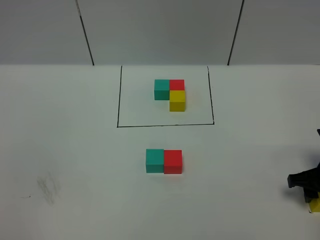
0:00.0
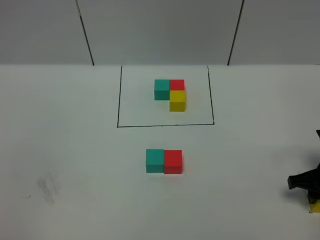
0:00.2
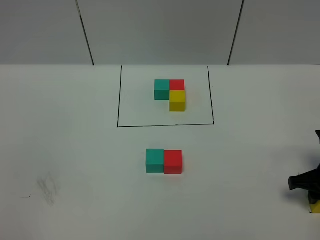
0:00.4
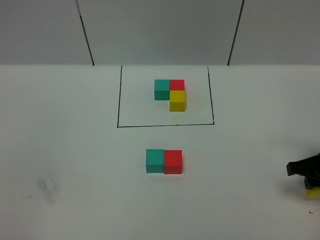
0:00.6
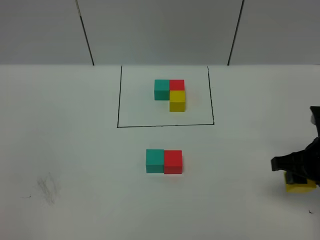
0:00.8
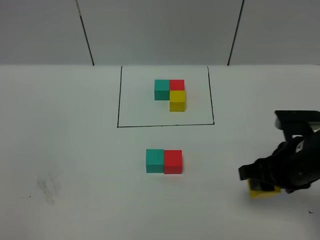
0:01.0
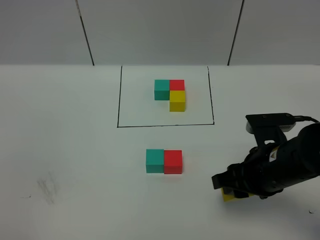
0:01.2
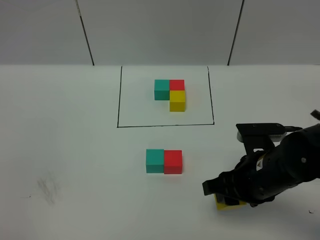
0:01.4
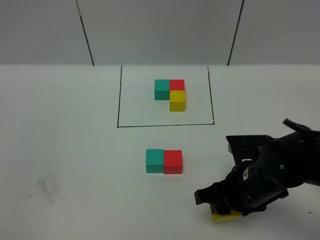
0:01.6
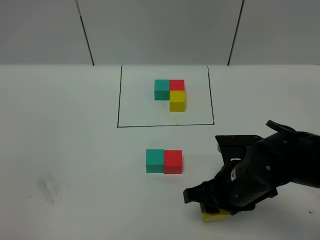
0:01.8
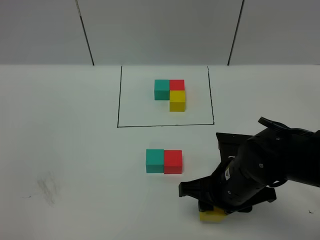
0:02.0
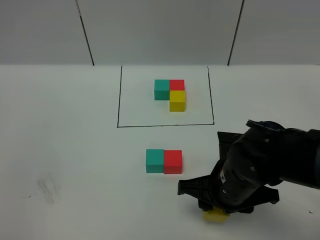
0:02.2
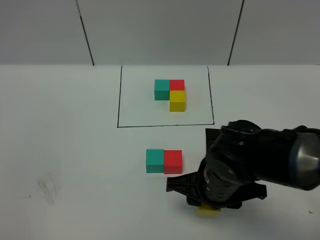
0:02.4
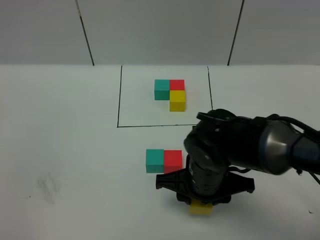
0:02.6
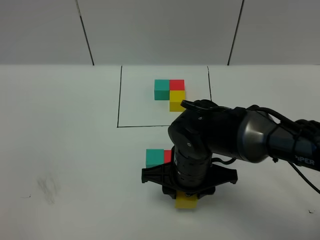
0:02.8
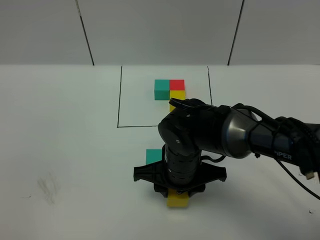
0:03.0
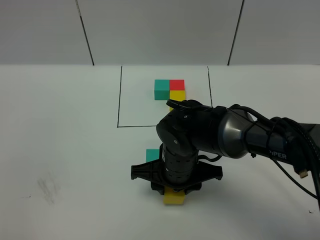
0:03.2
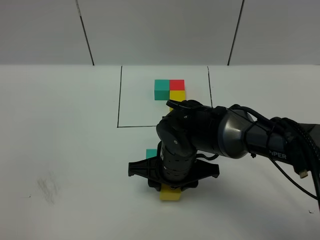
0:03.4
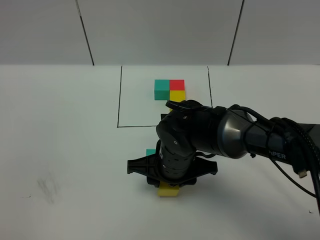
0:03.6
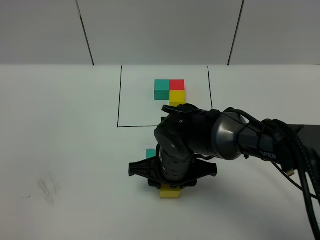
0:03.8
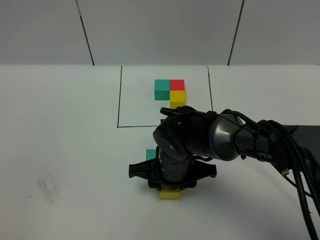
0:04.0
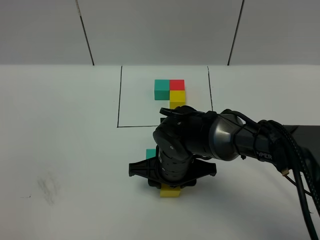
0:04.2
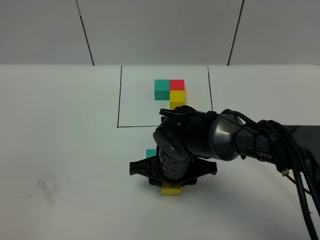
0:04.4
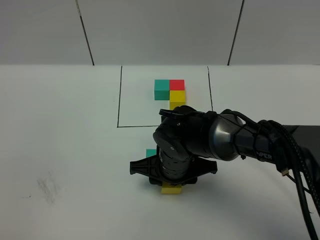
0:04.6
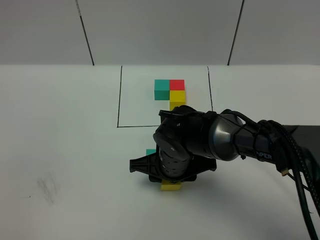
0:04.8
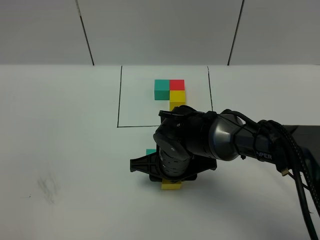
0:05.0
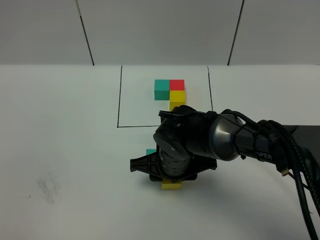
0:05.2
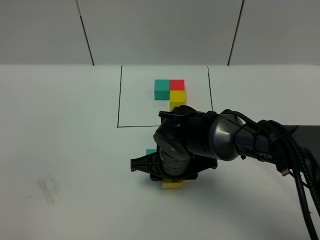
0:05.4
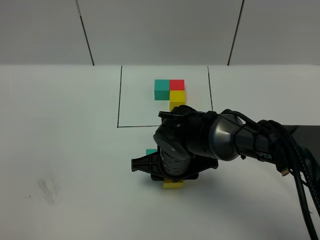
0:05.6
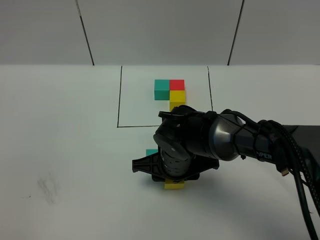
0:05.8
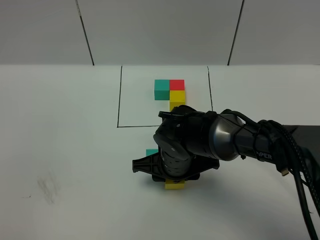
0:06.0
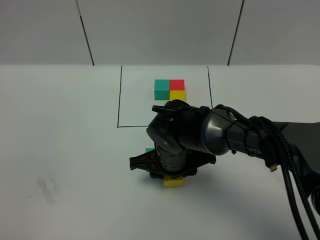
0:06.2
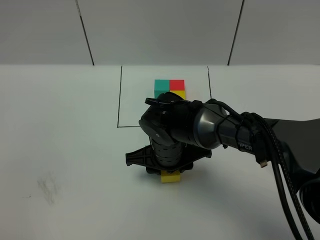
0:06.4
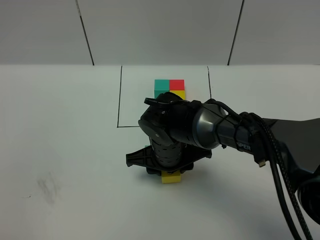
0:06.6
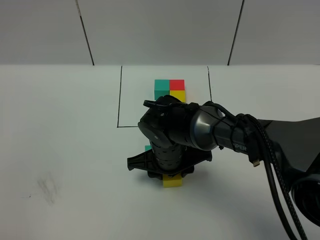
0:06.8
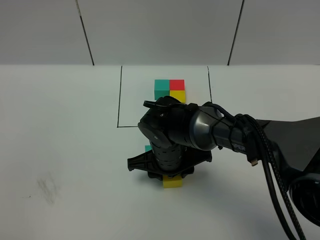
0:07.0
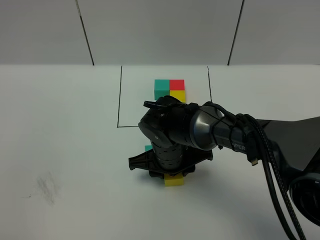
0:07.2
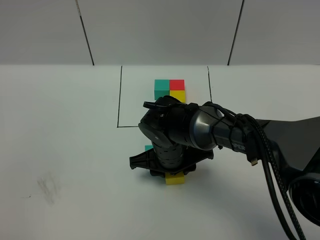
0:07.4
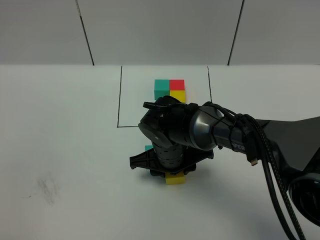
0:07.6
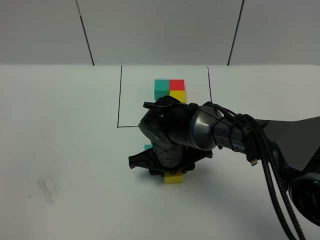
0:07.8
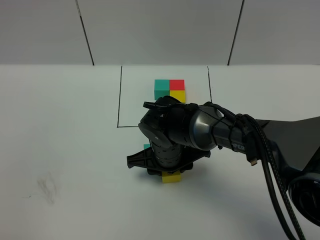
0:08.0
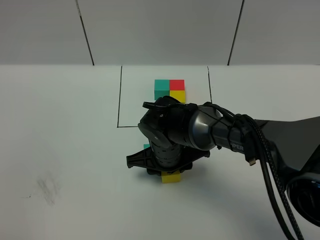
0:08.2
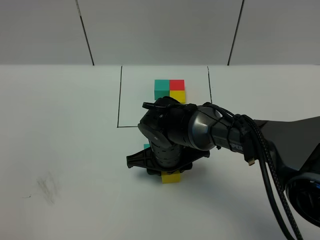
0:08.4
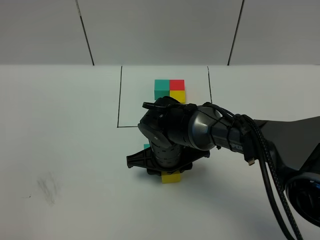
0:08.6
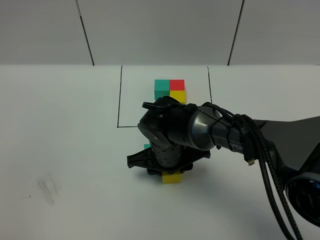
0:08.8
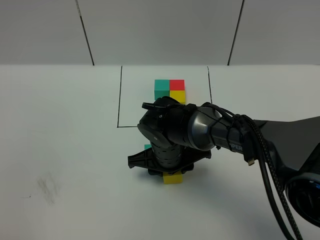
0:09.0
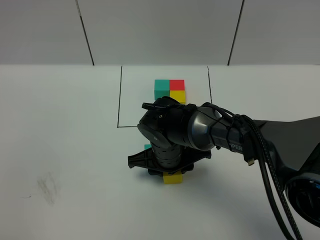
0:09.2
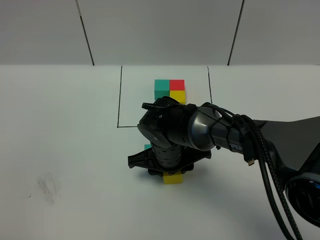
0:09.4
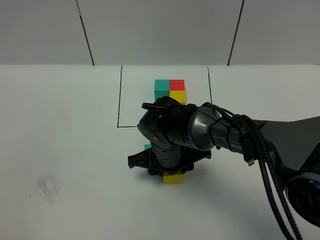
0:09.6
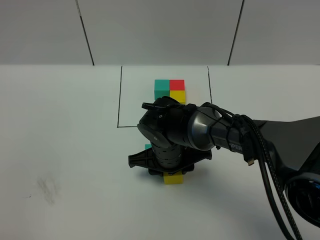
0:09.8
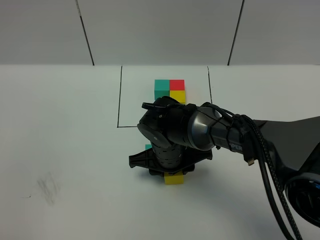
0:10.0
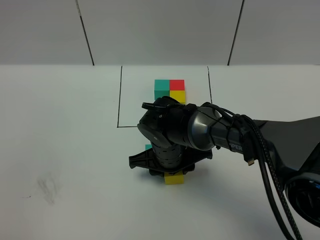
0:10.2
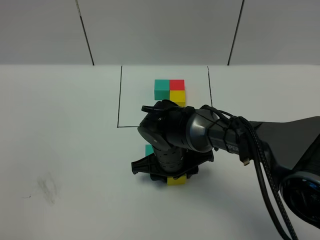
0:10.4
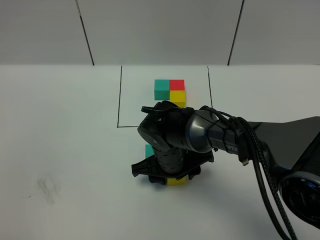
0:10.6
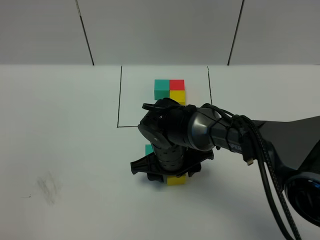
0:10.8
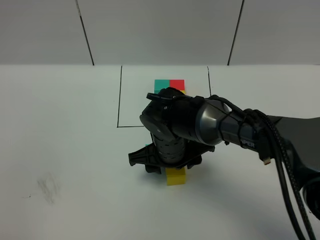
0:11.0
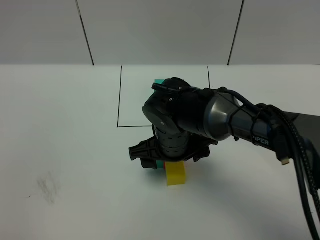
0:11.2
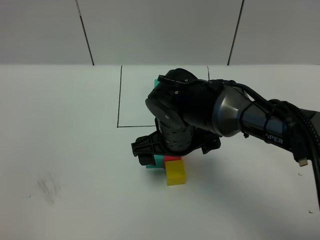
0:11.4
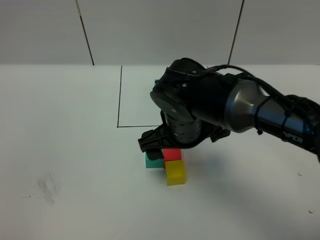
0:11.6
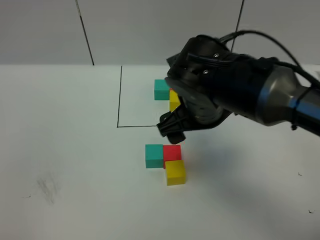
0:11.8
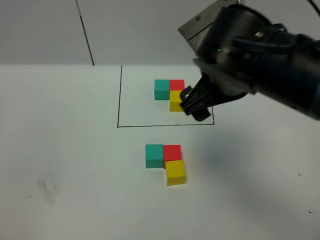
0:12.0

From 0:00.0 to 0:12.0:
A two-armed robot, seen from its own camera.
Task of the whole recording: According to the building block template in front, assemble the scattered blocks together.
Step, from 0:00.0 to 0:11.2: Put the yellow cube in the front of the red cube.
From 0:00.0 to 0:01.6: The right gripper travels to the left and backward by approximately 15 cm.
From 0:01.6 to 0:03.0: The right gripper travels to the left by some 10 cm.
From 0:03.0 to 0:04.4: The grippers stay close to where they were, moving slightly.
From 0:04.4 to 0:06.0: Neither gripper changes place.
From 0:06.0 to 0:07.6: There are only small adjustments of the grippers.
From 0:07.6 to 0:10.4: Both grippers stay about where they are.
From 0:10.4 to 0:12.0: The right gripper shifts roughly 20 cm upward, and opens up.

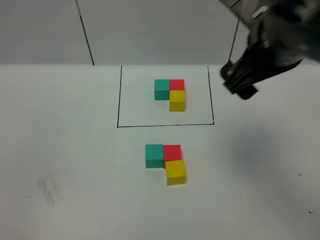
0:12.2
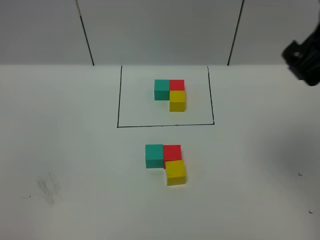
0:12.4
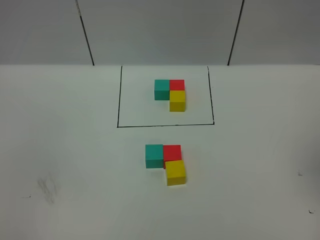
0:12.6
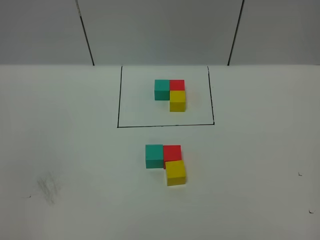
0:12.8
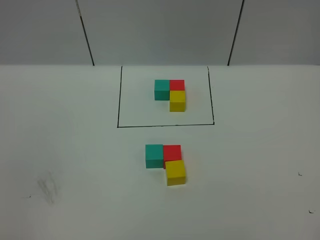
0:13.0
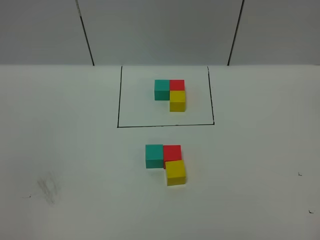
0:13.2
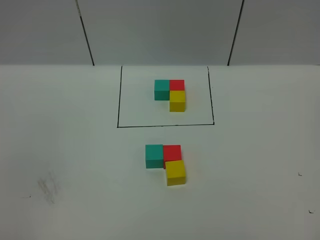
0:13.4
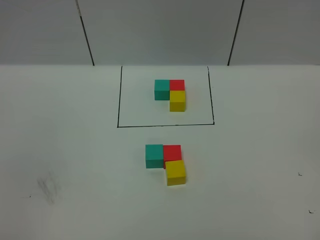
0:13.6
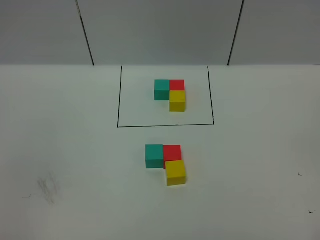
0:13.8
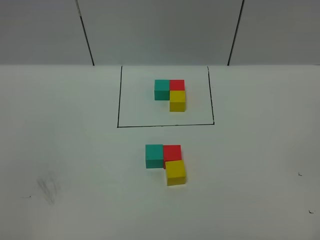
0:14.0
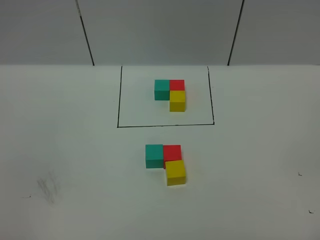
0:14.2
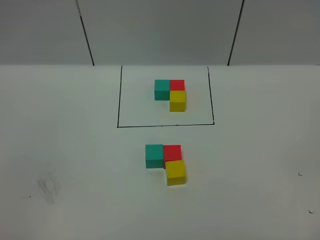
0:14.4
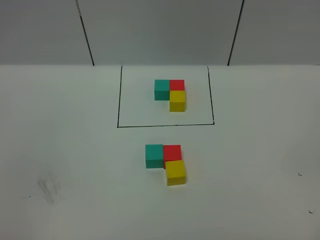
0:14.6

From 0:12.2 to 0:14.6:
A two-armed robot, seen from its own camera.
Task of the whole recording: According to the building block template in front, assemble the scattered blocks together.
From 0:12.2 to 0:13.4: The right gripper travels backward and to the right by some 40 cm.

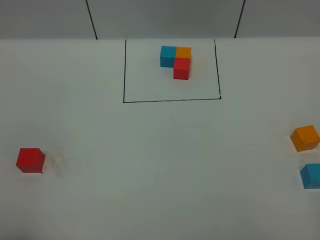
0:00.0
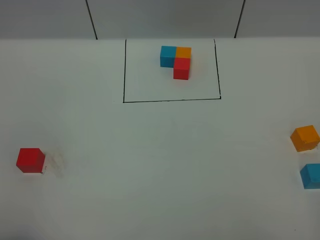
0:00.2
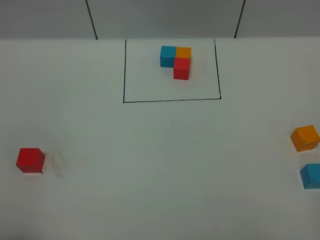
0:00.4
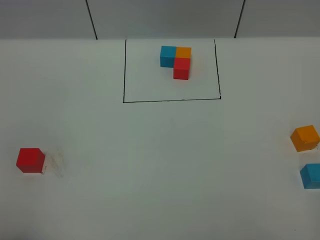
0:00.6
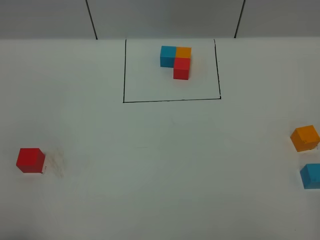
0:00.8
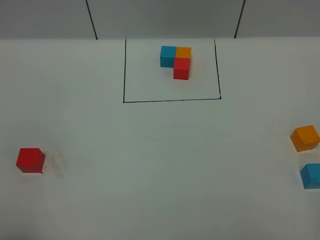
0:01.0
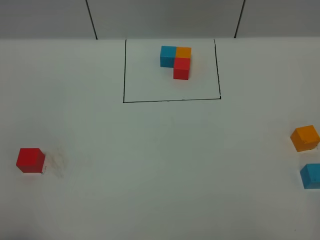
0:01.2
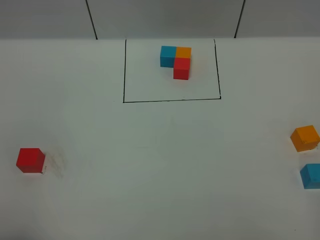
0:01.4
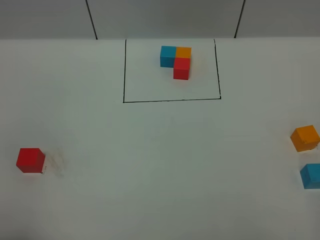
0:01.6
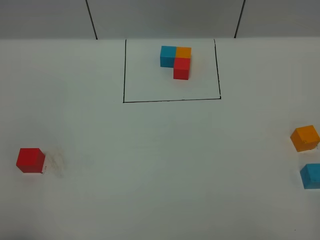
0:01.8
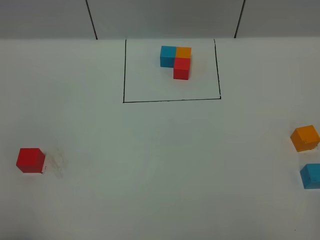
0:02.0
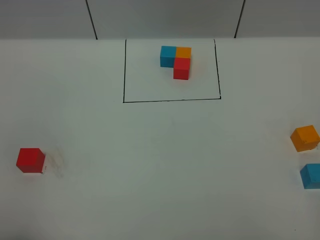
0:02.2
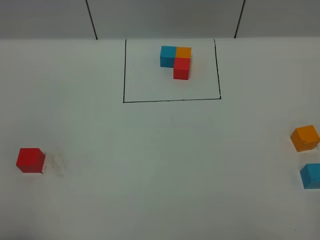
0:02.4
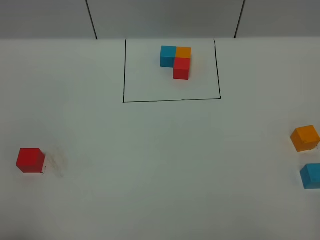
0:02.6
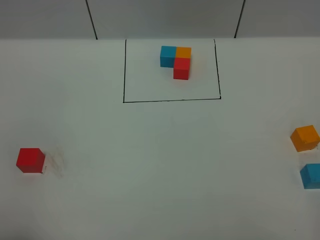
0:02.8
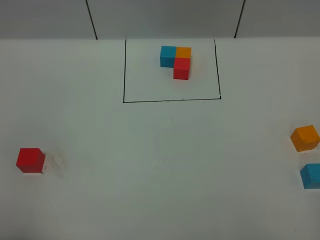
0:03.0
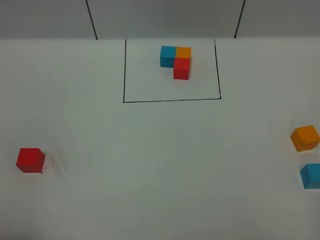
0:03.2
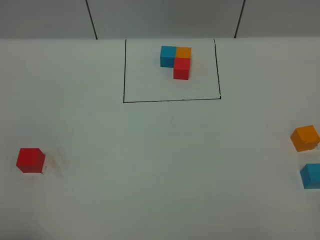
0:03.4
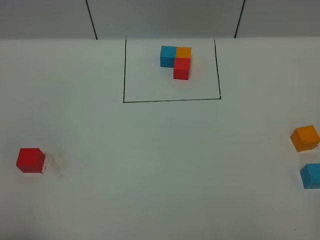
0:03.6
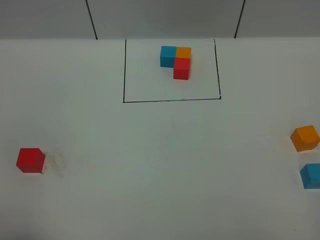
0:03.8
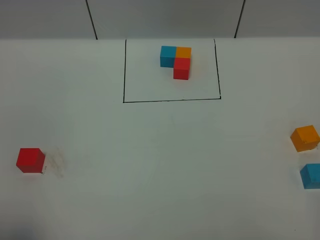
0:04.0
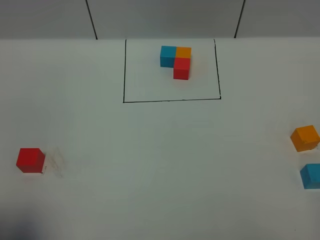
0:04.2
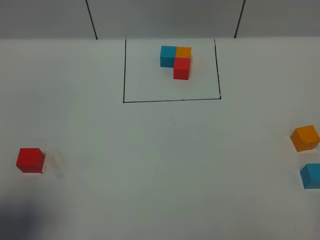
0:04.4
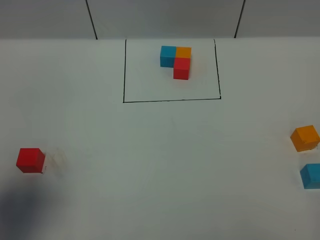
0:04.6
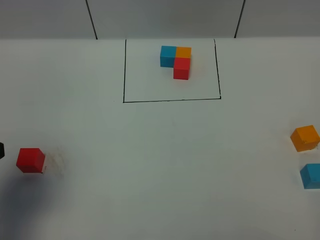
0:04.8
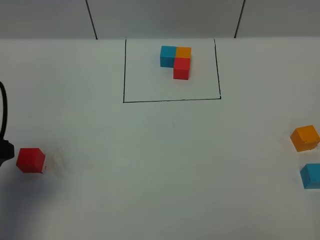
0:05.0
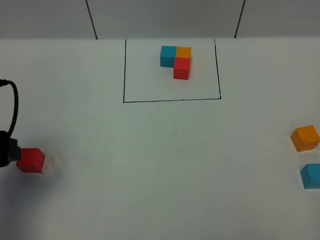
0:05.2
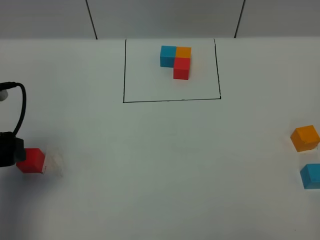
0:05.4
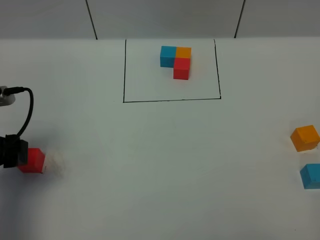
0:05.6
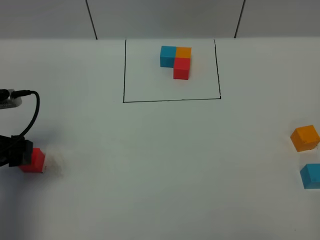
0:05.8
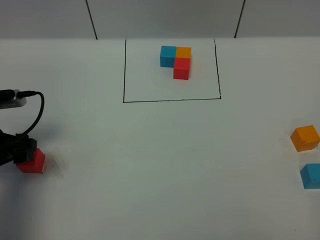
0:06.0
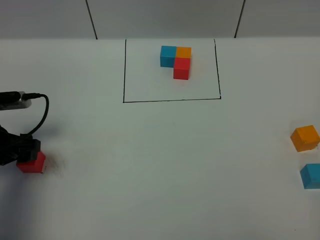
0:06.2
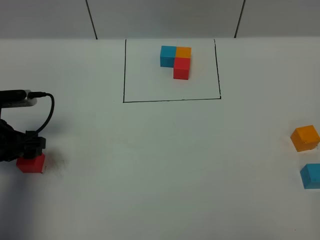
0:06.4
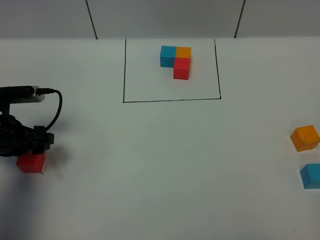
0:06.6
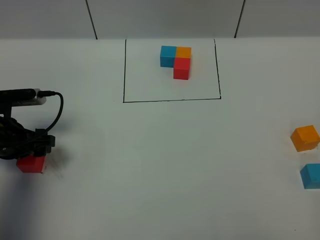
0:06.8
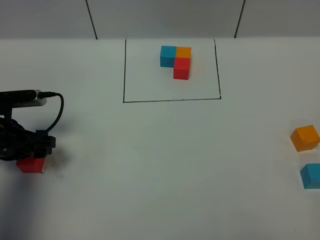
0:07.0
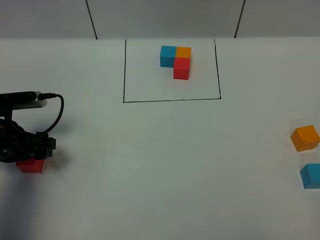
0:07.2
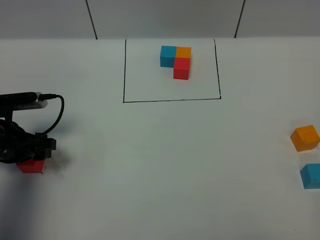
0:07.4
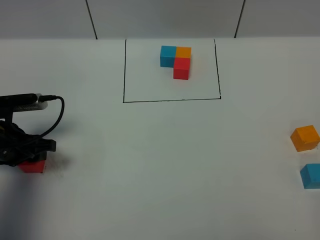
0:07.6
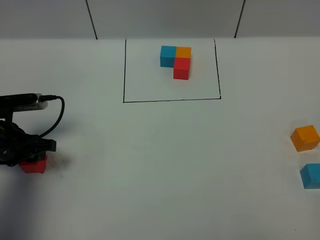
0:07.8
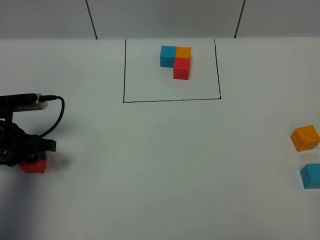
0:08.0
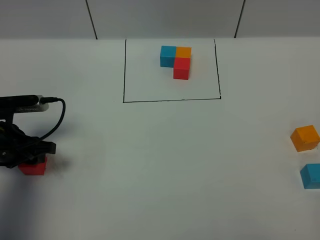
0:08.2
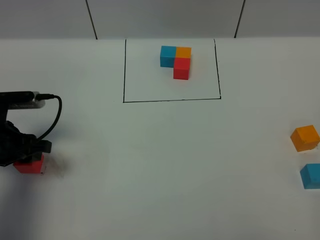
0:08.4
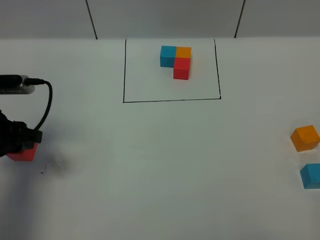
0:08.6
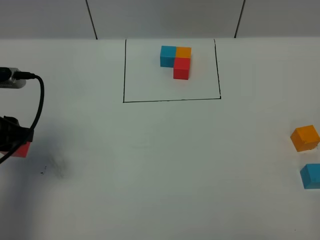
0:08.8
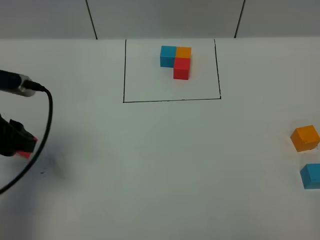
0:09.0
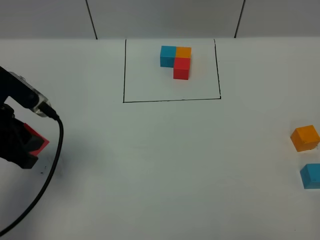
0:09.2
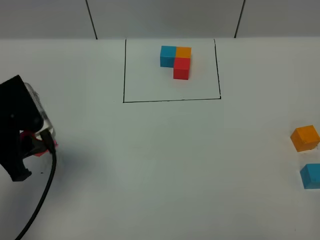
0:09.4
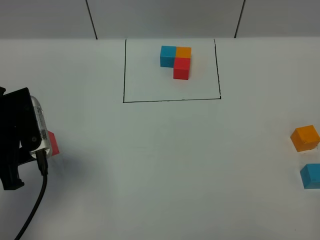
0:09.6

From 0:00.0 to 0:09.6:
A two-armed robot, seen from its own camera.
Task of the whole recording: According to the building block template in front, assemble the scattered blocks together.
From 0:00.0 to 0:01.6: Both grippers stay about where they are.
From 0:03.2 to 0:04.8: The left gripper heads forward, covering some 15 cm, and opens up.
From 0:04.8 to 0:06.4: The left gripper travels downward and forward by approximately 20 cm.
From 0:06.4 to 0:08.0: The left gripper closes up.
From 0:08.0 to 0:09.6: The left gripper heads upward, covering approximately 10 cm.
